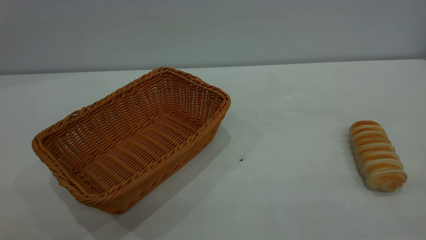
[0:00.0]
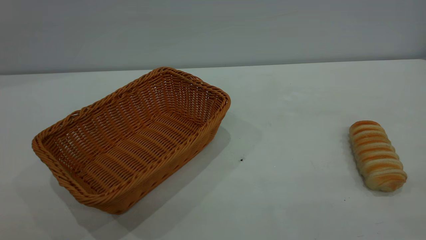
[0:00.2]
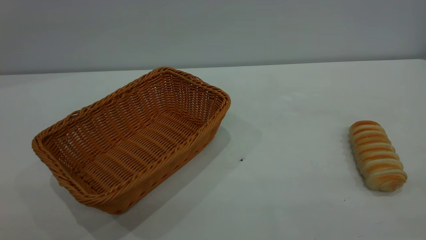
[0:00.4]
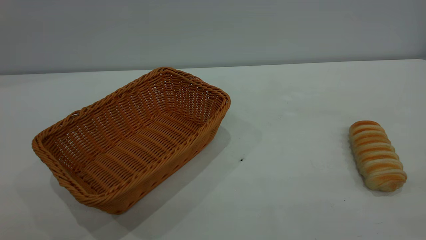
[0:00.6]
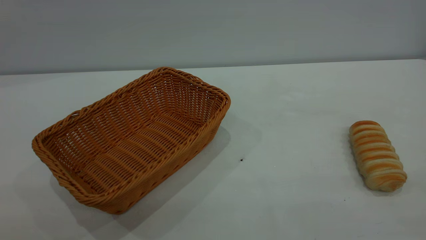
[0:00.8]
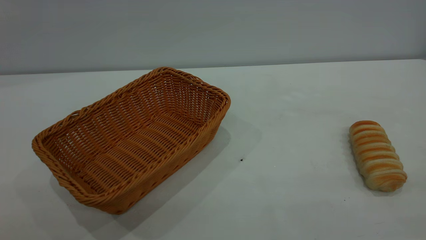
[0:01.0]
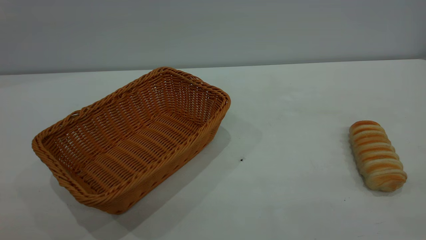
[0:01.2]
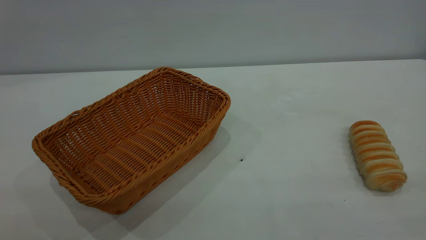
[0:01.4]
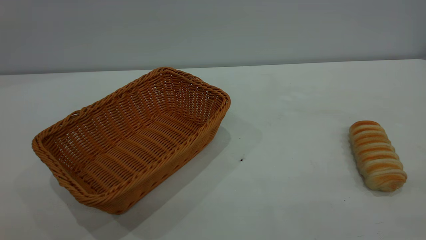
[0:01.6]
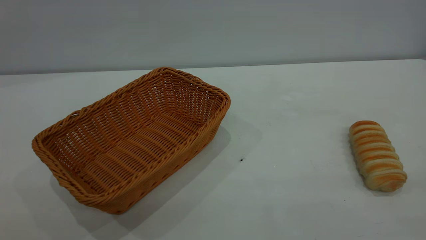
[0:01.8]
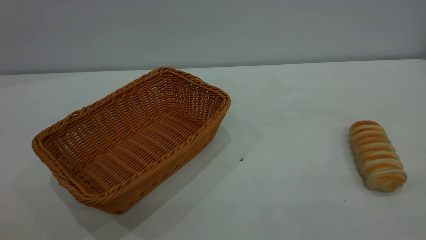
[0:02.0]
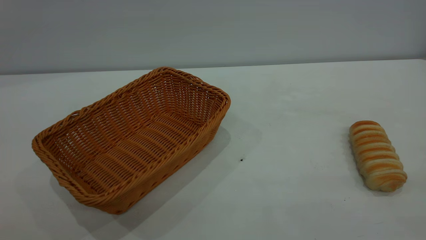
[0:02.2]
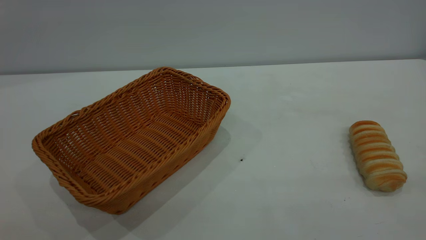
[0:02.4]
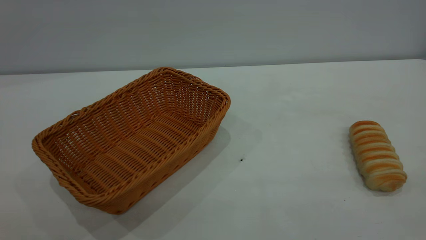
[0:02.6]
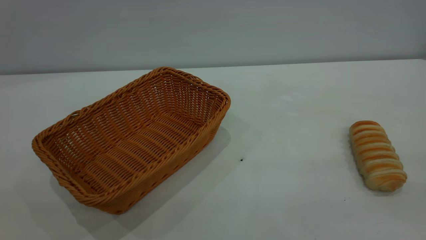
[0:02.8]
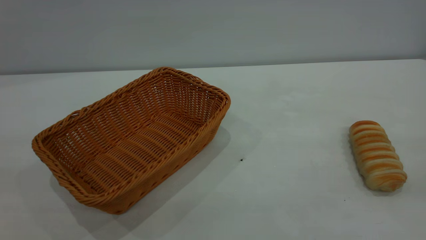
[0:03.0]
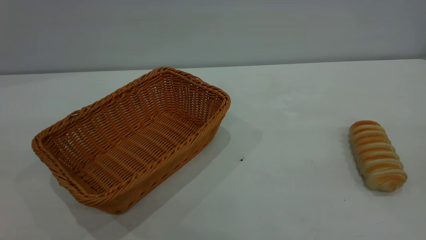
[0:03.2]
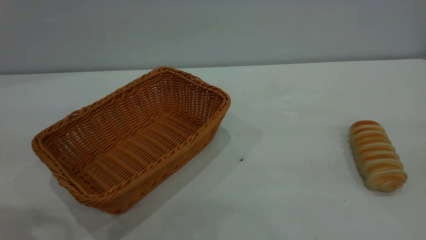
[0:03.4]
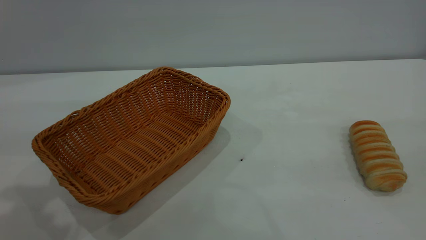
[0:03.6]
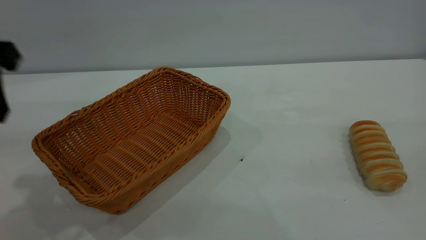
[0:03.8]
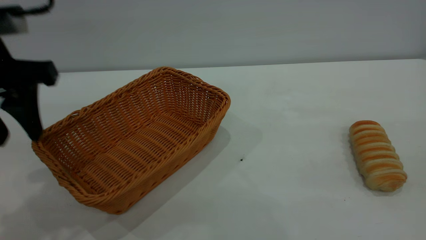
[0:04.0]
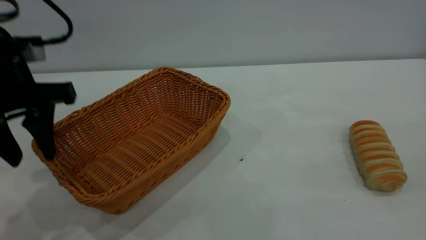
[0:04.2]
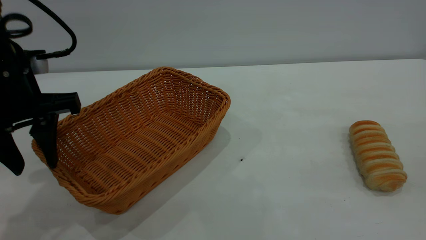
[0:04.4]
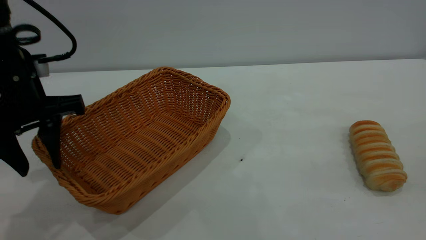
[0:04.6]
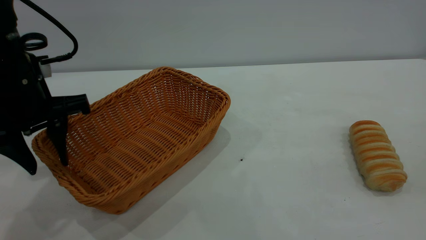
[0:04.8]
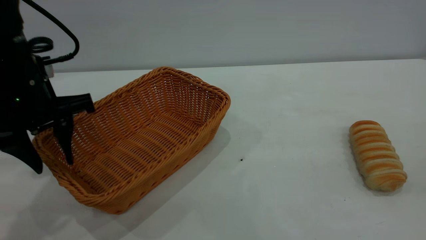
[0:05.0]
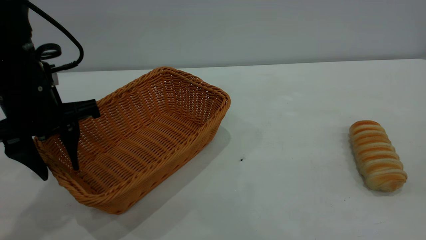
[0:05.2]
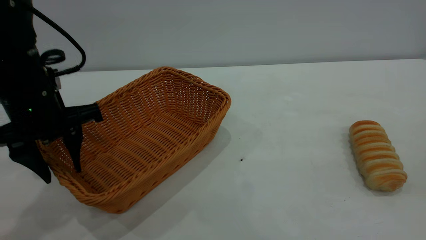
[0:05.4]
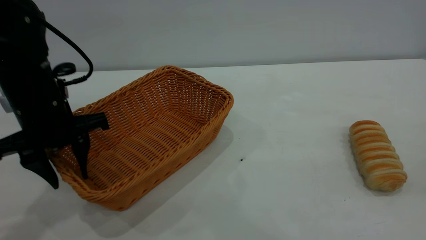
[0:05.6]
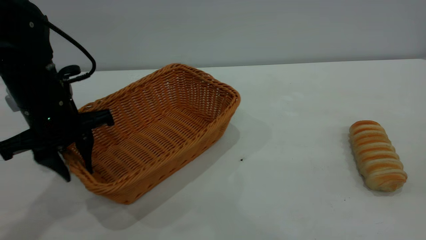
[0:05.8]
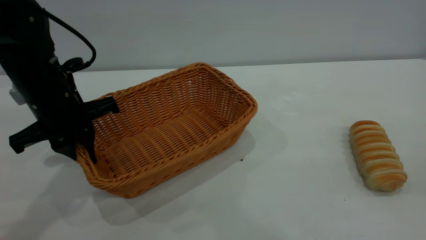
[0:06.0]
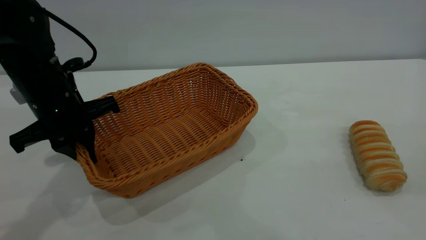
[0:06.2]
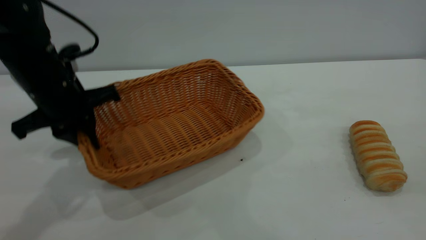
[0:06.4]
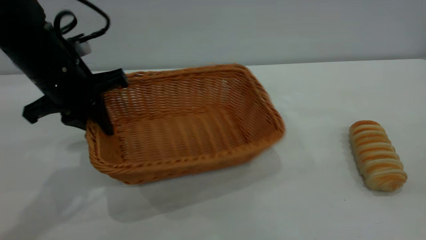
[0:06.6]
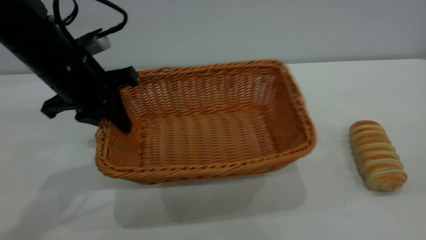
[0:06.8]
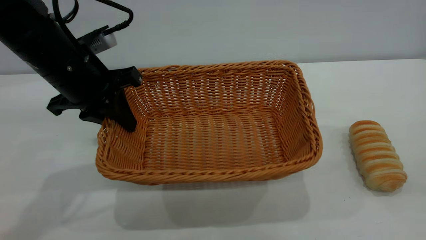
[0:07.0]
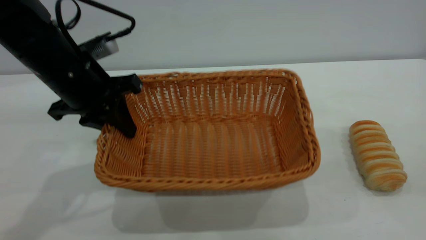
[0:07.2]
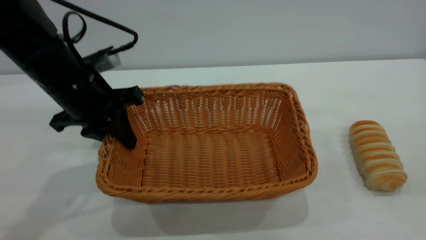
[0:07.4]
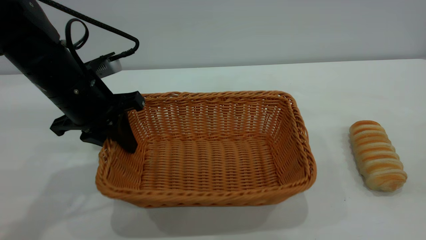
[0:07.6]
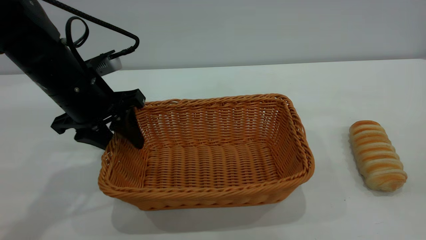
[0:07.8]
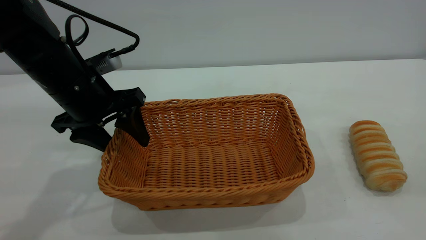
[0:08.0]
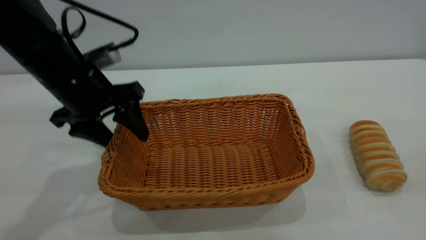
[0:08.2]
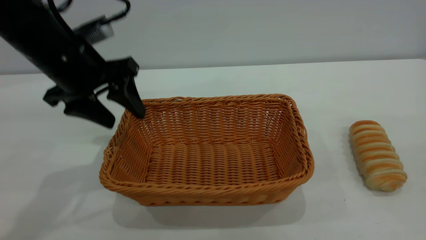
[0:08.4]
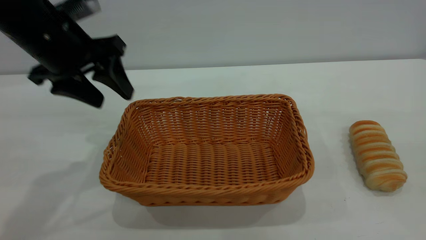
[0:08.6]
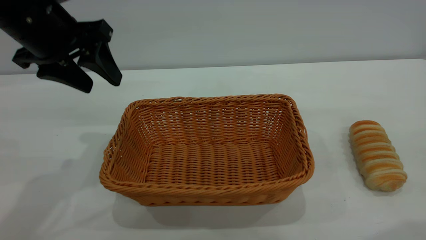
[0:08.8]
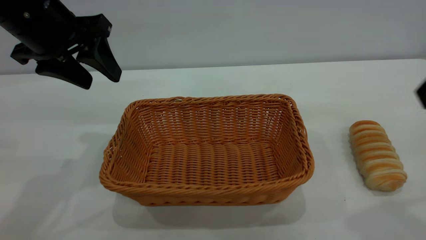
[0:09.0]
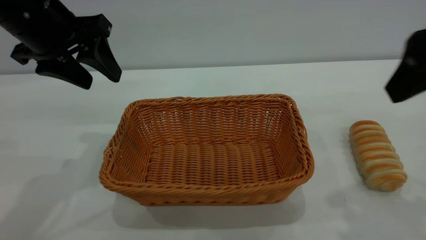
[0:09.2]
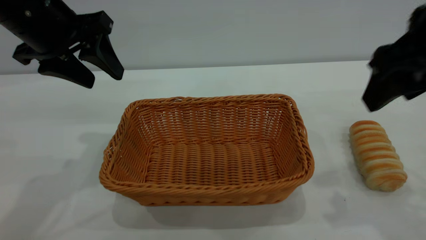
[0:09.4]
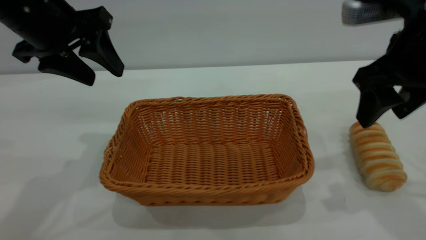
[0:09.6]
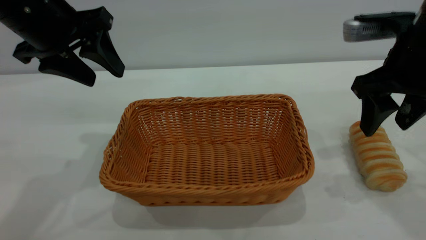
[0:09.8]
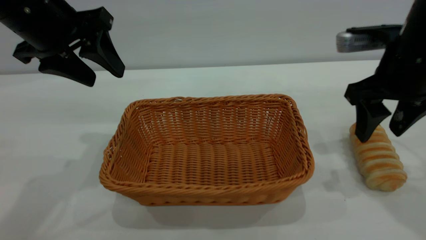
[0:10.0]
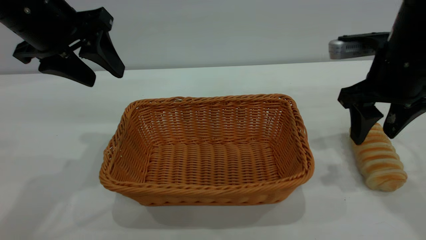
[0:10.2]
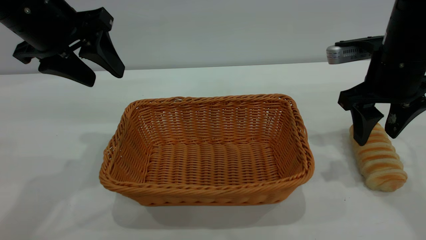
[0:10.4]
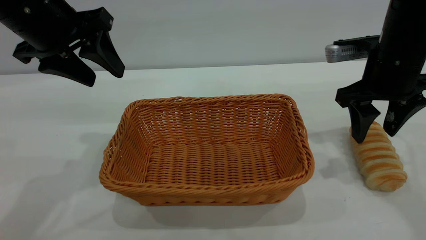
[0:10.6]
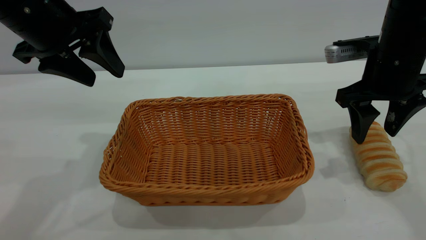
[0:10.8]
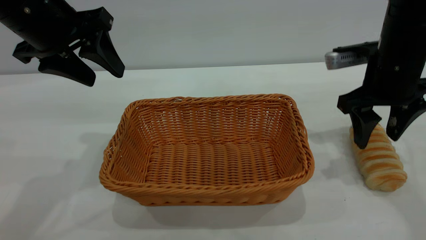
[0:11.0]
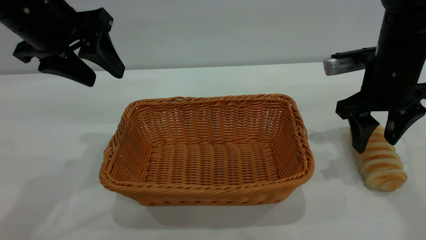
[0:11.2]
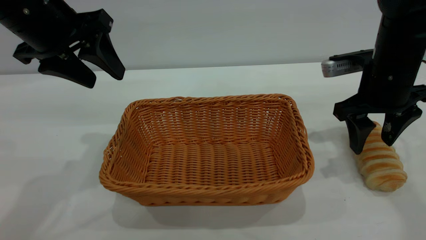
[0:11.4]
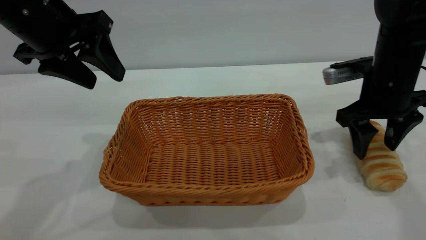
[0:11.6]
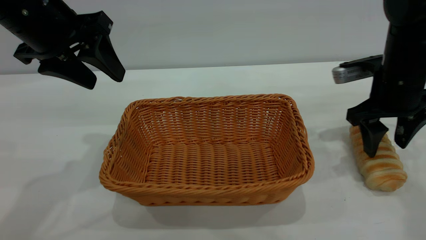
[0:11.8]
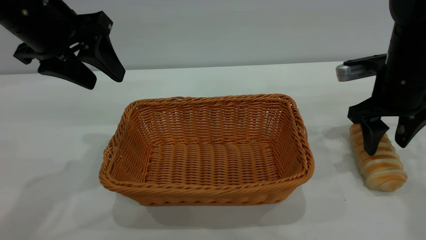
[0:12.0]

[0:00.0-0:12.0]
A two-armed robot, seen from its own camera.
Task of the whole recording: One hand grasps the yellow basket and places it in the middle of the table, while the other hand picks up the long bread and puts it into the yellow basket.
Step, 0:00.0 to 0:08.4: Move the basket to the center of view.
0:00.0 to 0:01.6: The two grippers keep their place.
0:03.0 to 0:04.4: The left gripper goes about 25 cm forward and downward.
0:04.4 to 0:06.0: The left gripper is displaced downward by some 5 cm, and closes its fingers.
0:07.6 to 0:09.0: The left gripper moves upward, approximately 10 cm, and opens its fingers. Meanwhile the right gripper shifts some 10 cm forward.
0:09.0 to 0:10.4: The right gripper travels forward and downward by about 20 cm.
0:10.4 to 0:12.0: The grippers stay close to where they were, moving slightly.

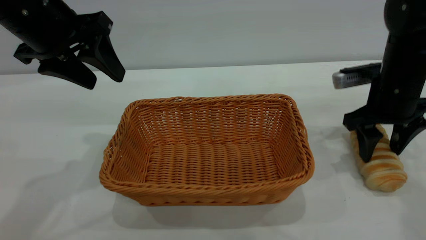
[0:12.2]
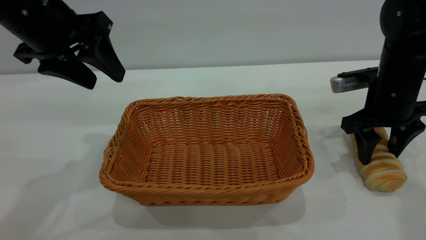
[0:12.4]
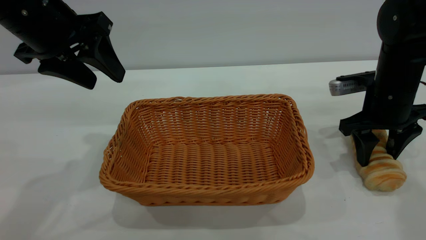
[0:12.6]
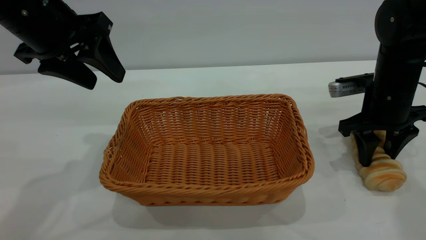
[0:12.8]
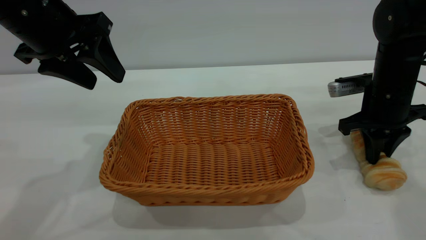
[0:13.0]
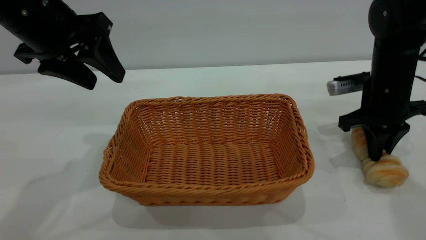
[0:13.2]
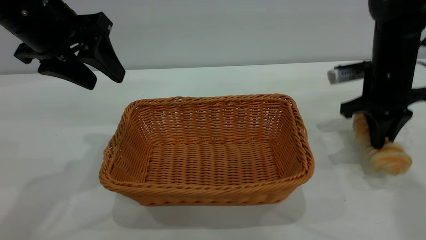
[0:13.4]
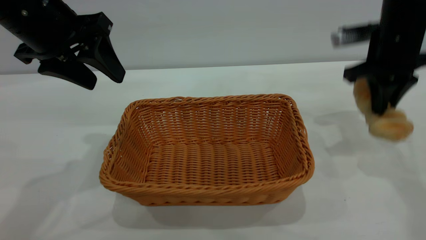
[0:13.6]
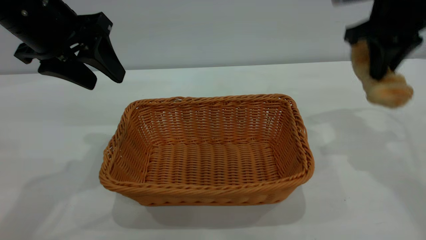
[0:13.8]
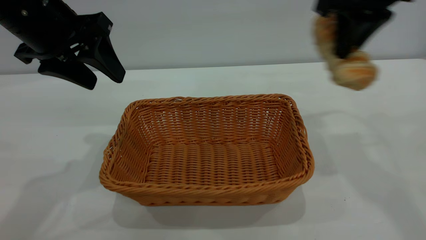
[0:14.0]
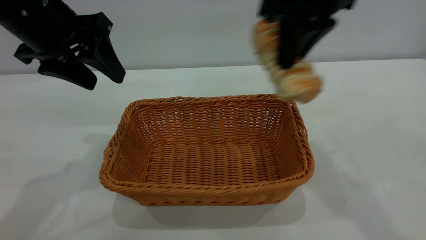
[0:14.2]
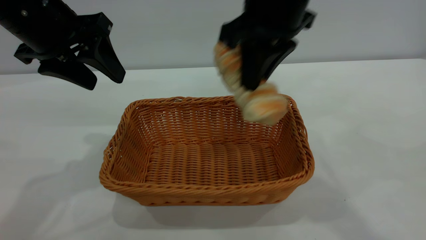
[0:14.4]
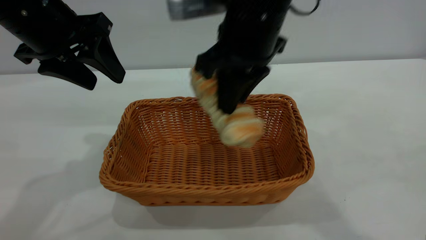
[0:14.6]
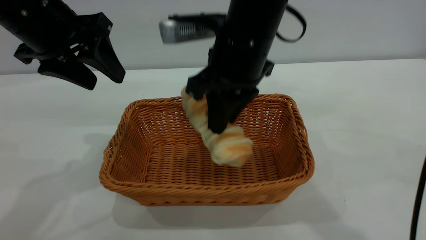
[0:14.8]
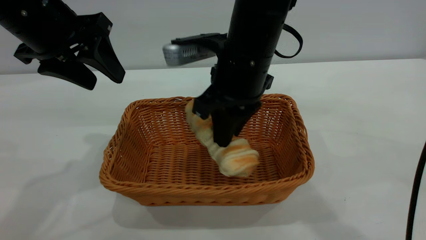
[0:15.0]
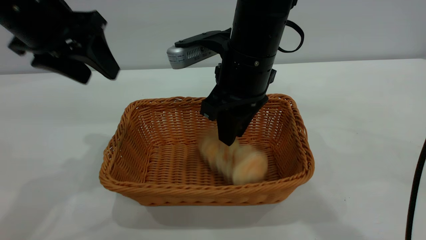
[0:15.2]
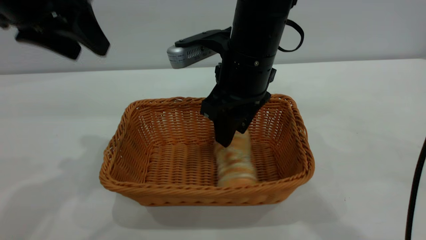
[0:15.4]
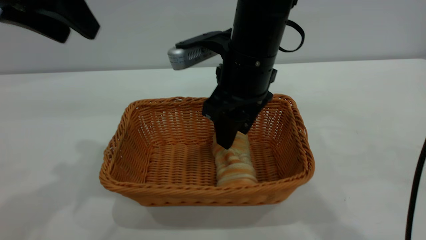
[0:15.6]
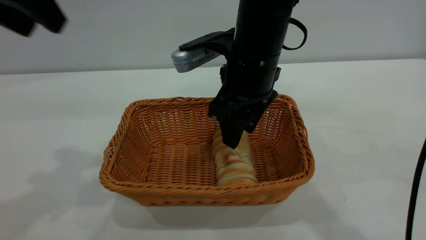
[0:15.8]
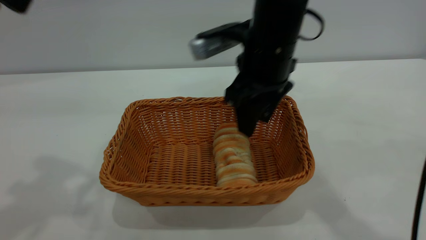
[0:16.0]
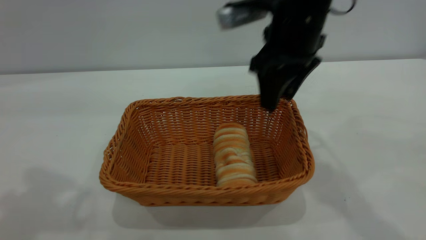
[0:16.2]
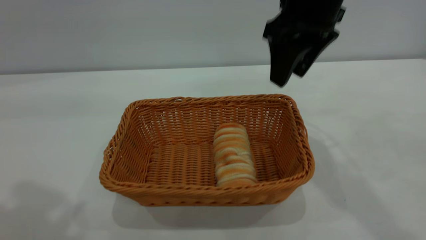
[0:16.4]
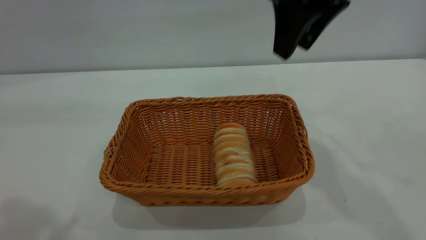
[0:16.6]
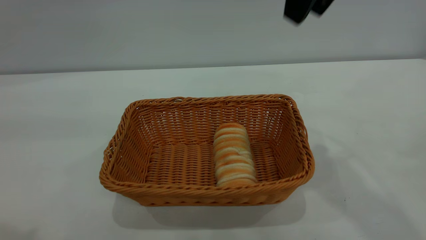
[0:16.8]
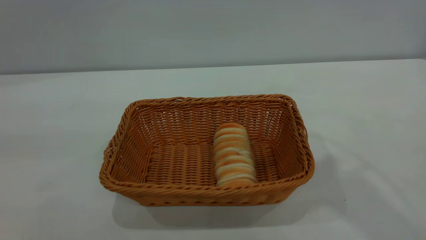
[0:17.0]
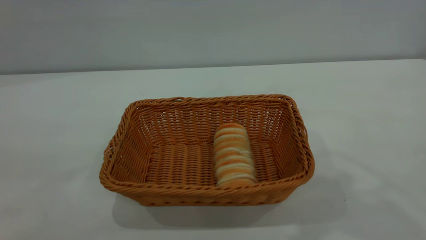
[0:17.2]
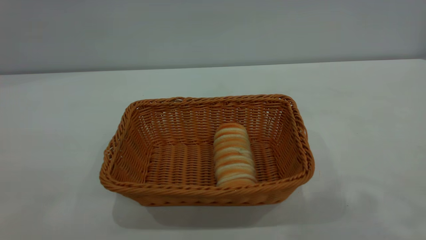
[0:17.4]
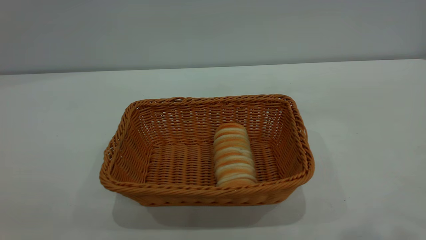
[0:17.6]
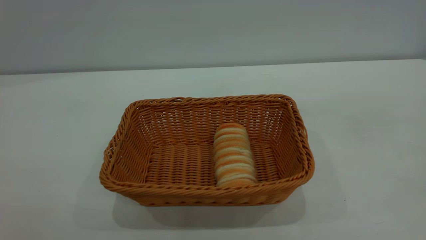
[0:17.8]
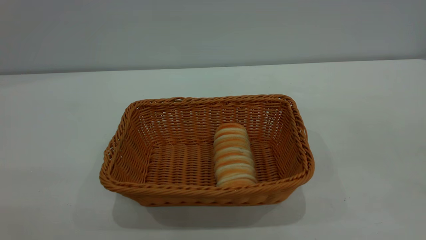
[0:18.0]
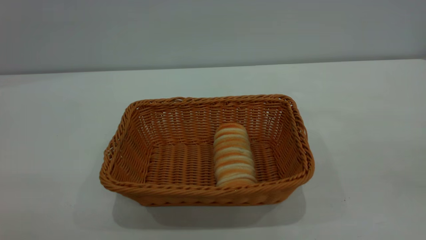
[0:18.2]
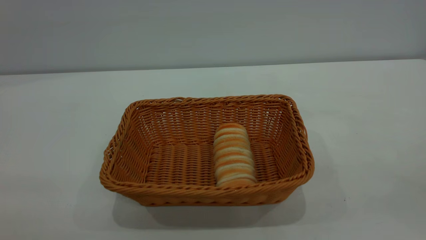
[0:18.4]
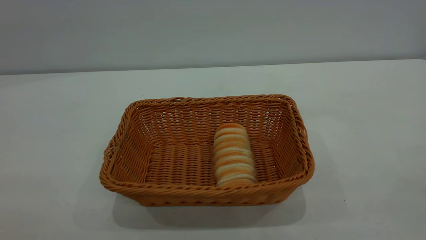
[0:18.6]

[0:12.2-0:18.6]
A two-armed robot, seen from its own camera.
Task of the whole recording: One hand grasps the yellow basket and places it in the middle of the table, while the other hand picks up the long bread and puts it into the yellow basket.
Step, 0:13.8 to 0:16.4: place the bread into the basket.
0:12.2 to 0:13.8: The right gripper travels upward by about 15 cm, and closes its fingers.
0:13.8 to 0:15.4: The right gripper goes about 20 cm to the left, and opens up; the left gripper ends up approximately 5 cm from where it was.
0:15.4 to 0:17.0: The left gripper is displaced backward and upward by some 25 cm, while the right gripper is displaced upward and to the right by about 25 cm.
